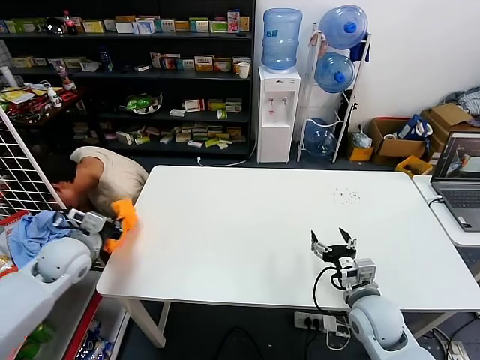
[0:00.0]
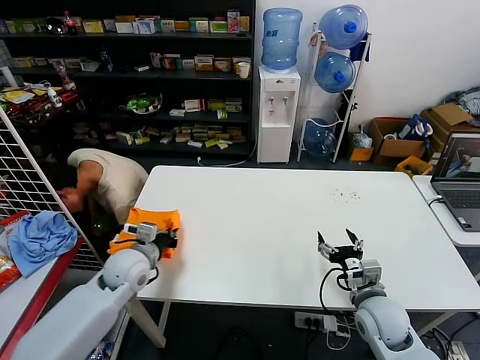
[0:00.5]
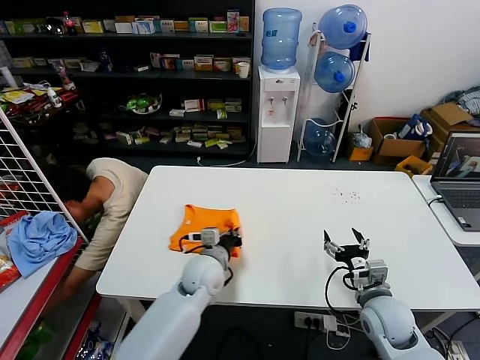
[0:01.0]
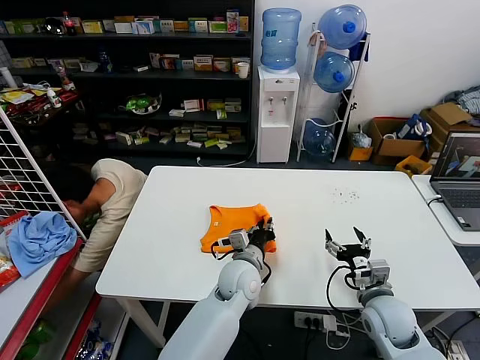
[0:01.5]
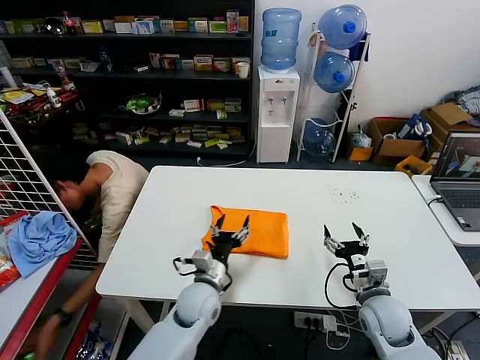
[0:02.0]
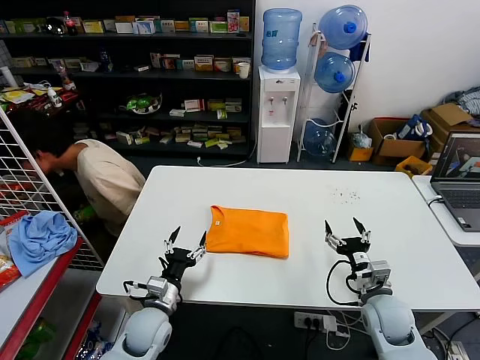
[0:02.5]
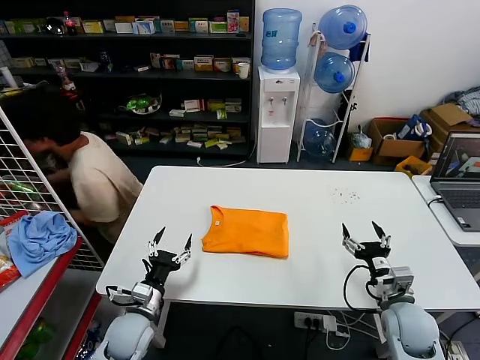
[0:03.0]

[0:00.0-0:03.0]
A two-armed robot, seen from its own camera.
Task of the whole recording: fold and organize the clothes.
0:00.0 to 0:01.5: The left gripper heads to the right, covering approximately 40 cm.
0:01.5 to 0:03.0: The left gripper travels to the left by roughly 25 cm, and opens up.

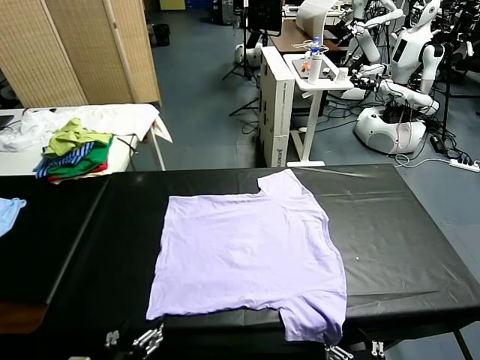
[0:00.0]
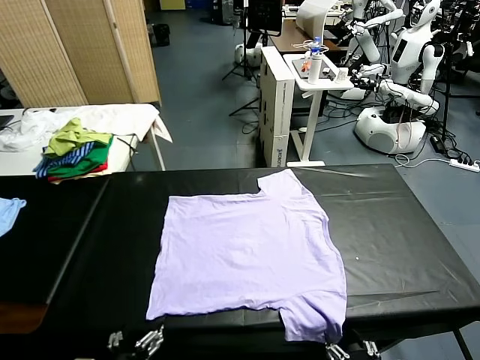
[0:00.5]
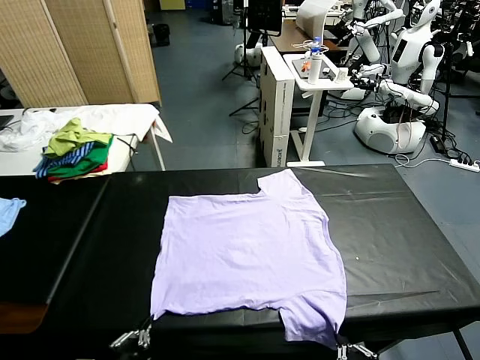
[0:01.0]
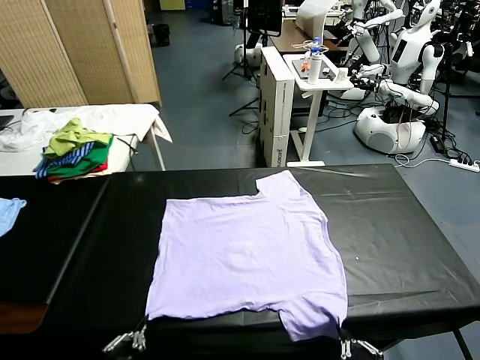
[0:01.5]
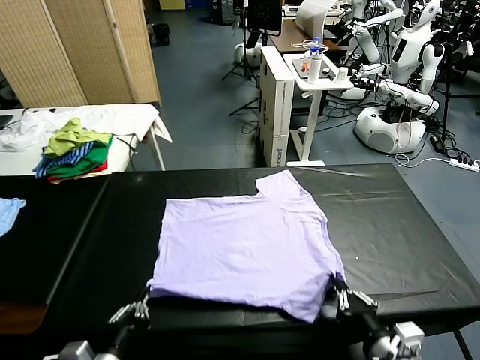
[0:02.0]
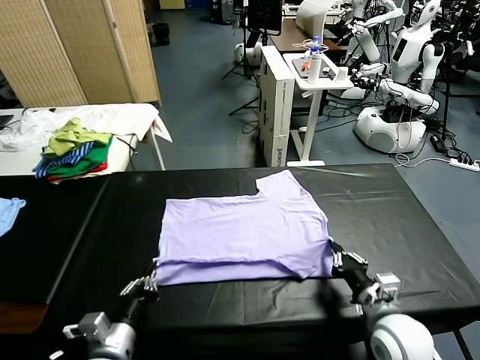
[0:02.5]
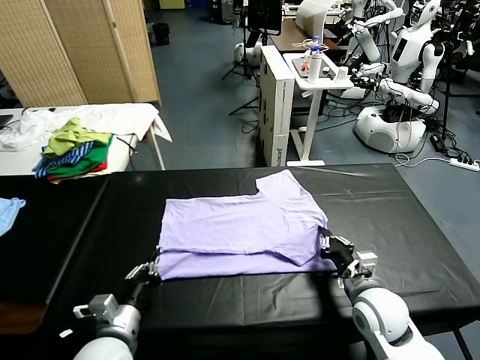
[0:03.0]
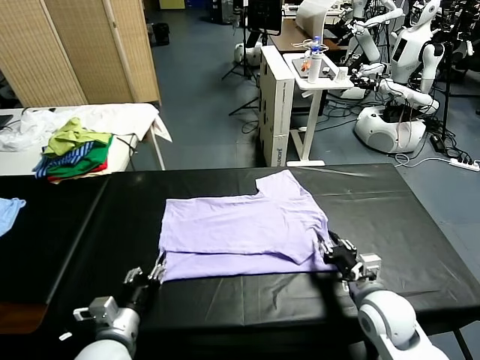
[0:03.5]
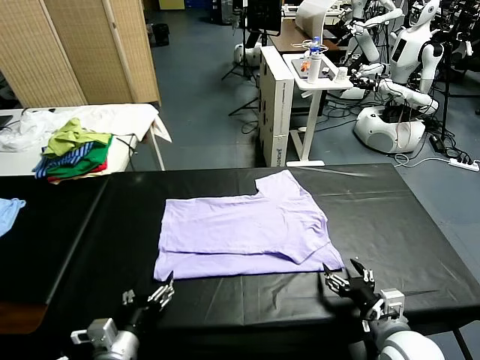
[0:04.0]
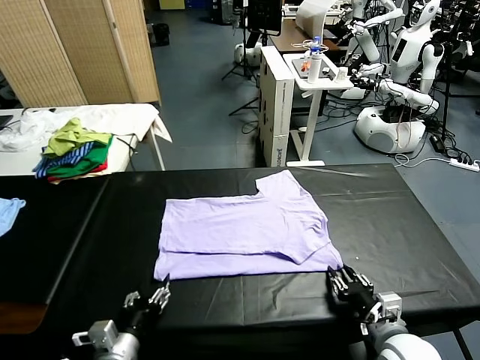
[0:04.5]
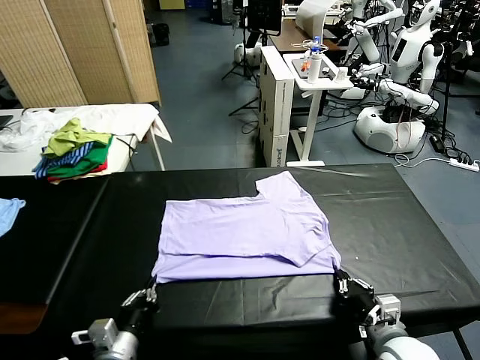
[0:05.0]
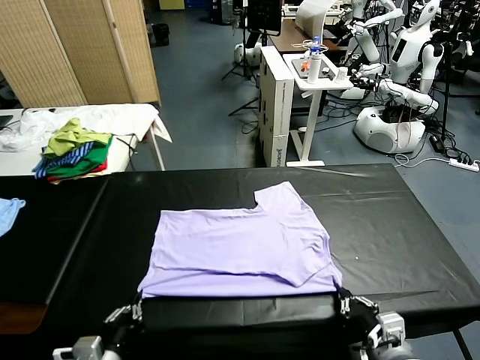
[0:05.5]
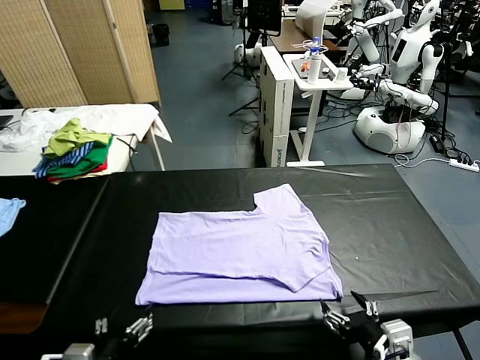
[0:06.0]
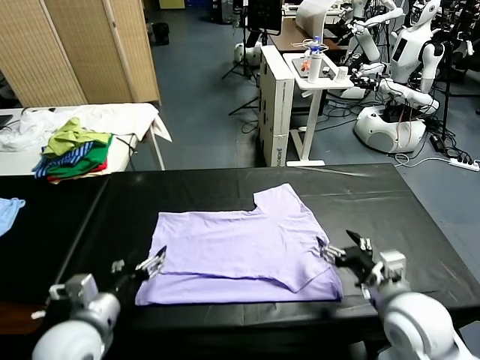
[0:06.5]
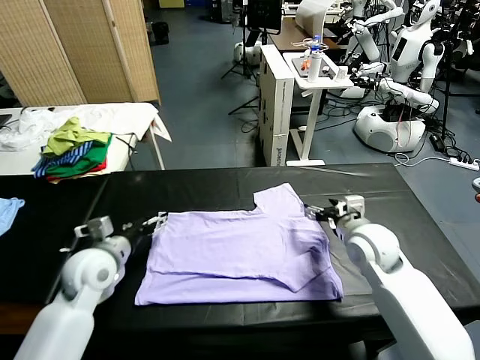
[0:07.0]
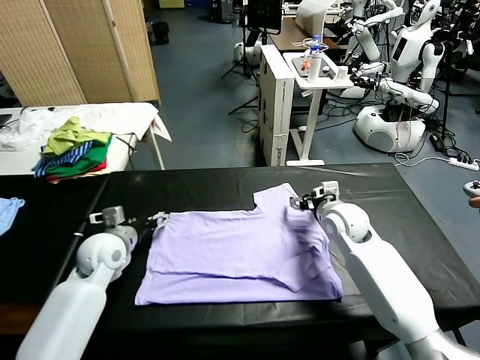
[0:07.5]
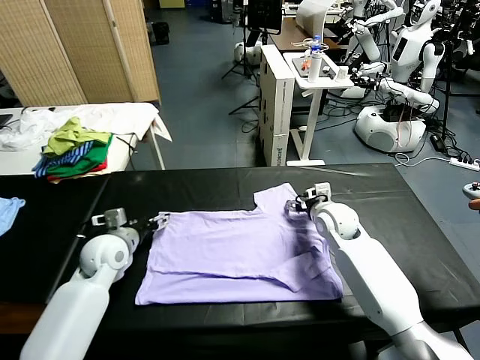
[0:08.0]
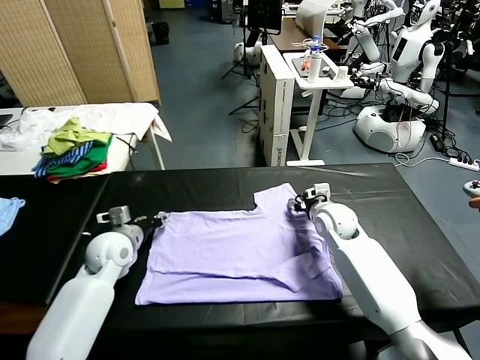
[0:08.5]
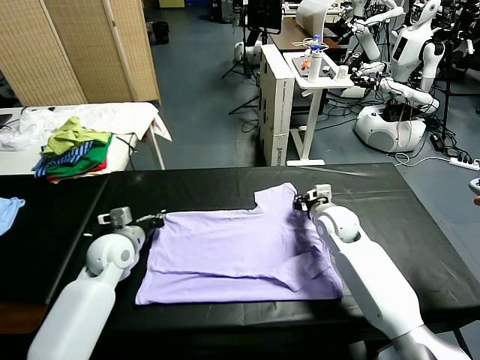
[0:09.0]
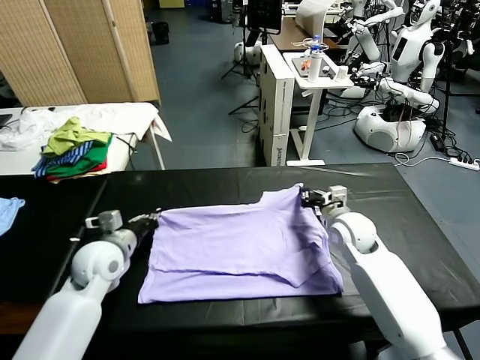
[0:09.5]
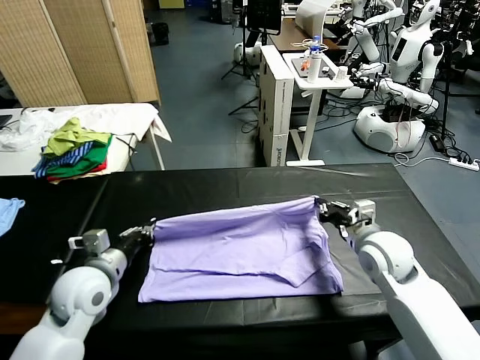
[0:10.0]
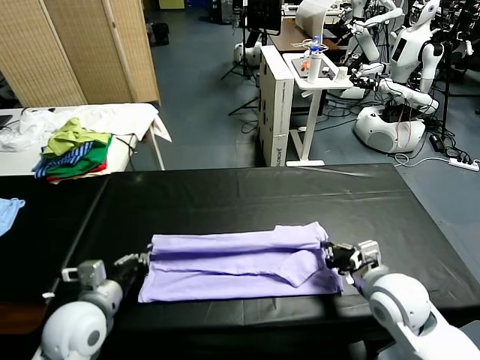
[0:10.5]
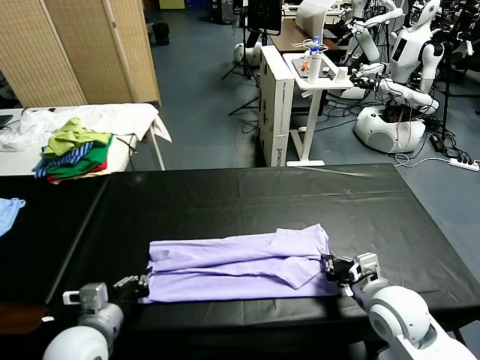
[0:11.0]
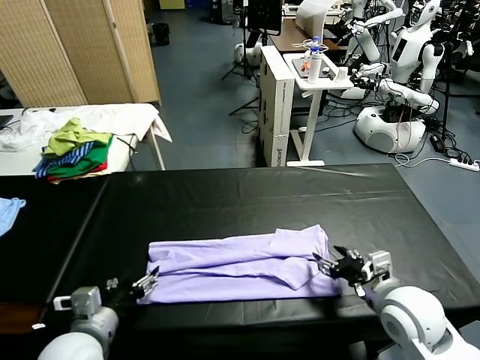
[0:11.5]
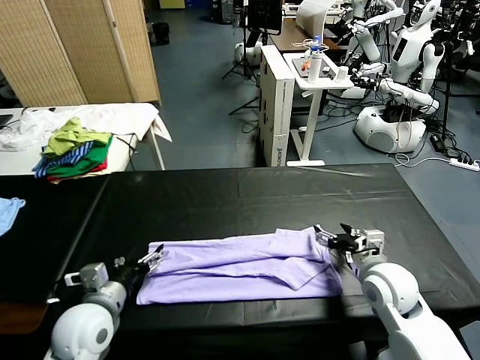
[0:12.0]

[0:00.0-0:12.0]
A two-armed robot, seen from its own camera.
Task of the whole recording: fold and organize the clothes.
Step, 0:00.0 to 0:01.5: use both grippers simultaneously to clamp the lower edge of the clothing fabric.
Step, 0:02.0 to 0:03.5: use both grippers to drag the lower edge of the fabric forward and fold it over the upper edge.
Step, 0:04.0 to 0:05.5: Drag the clothes downward with both gripper.
Step, 0:06.0 to 0:09.0: use both grippers simultaneously to clamp the upper edge of the clothing fabric.
Step, 0:09.5 to 0:11.0: use both grippers to drag the upper edge of the fabric backward and fold it over the lower edge.
0:02.0 to 0:04.0: The left gripper opens up. Meanwhile the right gripper heads backward, covering some 10 cm, and opens up.
0:04.0 to 0:06.0: The right gripper is displaced forward and upward by some 20 cm, and closes, then reopens; the left gripper shifts some 5 cm upward, and closes, then reopens.
0:06.0 to 0:08.0: The left gripper goes roughly 30 cm forward. The right gripper goes roughly 10 cm forward and downward.
0:08.0 to 0:10.0: The right gripper heads backward, covering about 20 cm, and closes up. Meanwhile the left gripper goes approximately 10 cm backward, and closes up.
0:10.0 to 0:12.0: The right gripper moves forward, some 10 cm, and opens up. Meanwhile the left gripper opens up.

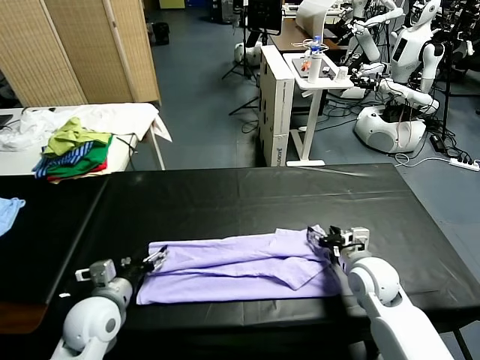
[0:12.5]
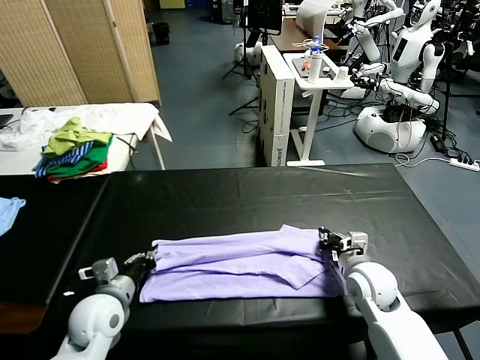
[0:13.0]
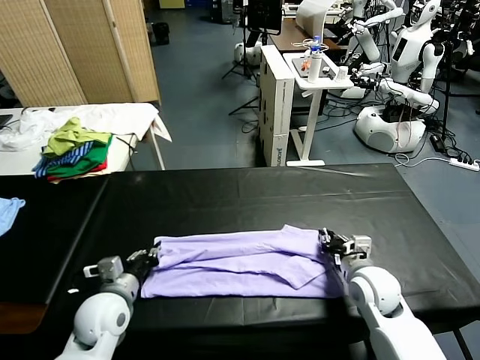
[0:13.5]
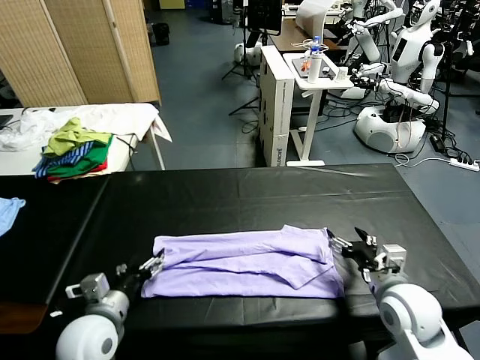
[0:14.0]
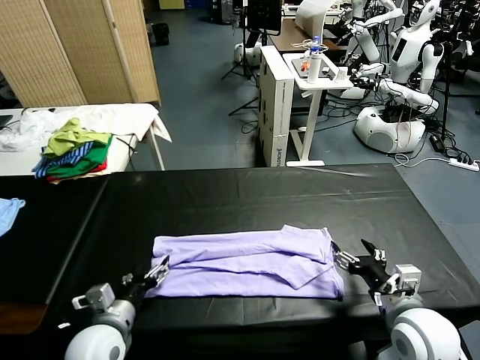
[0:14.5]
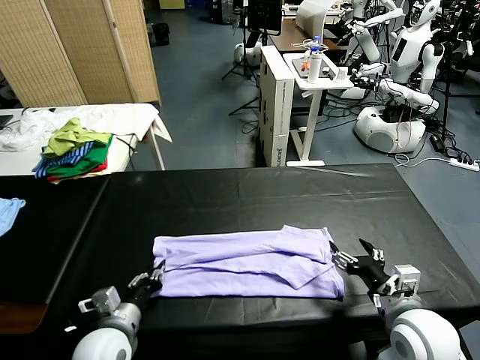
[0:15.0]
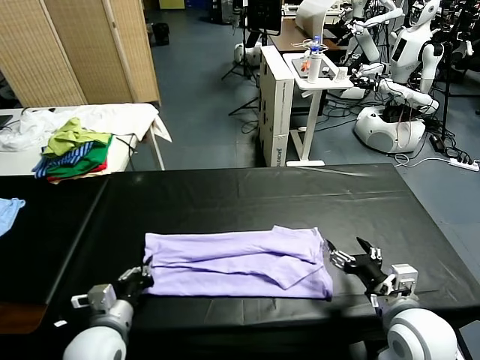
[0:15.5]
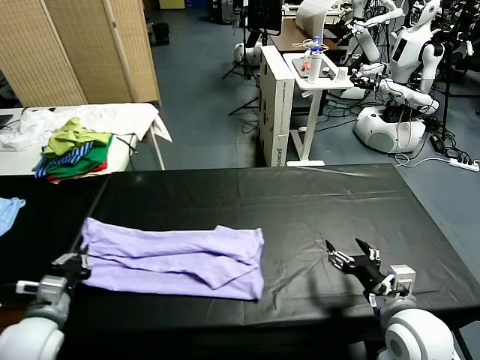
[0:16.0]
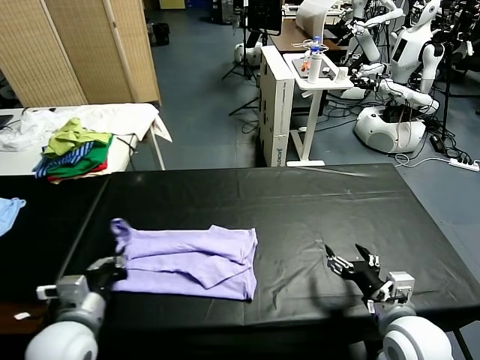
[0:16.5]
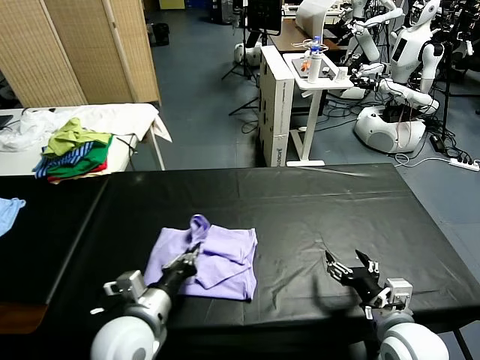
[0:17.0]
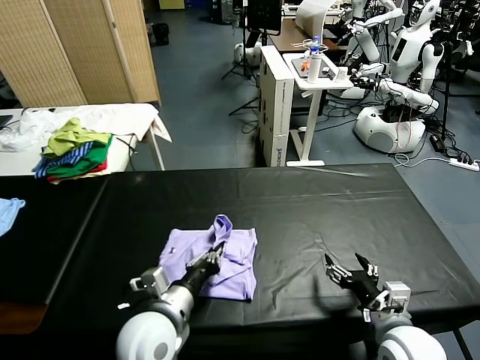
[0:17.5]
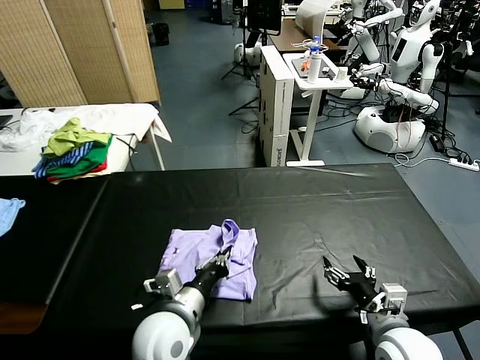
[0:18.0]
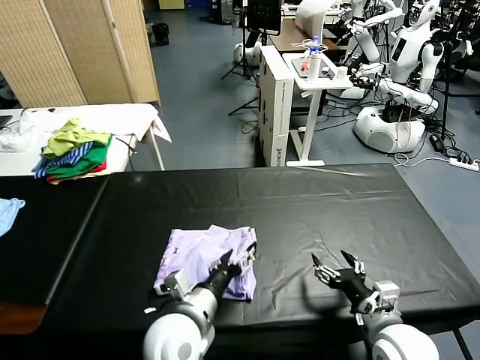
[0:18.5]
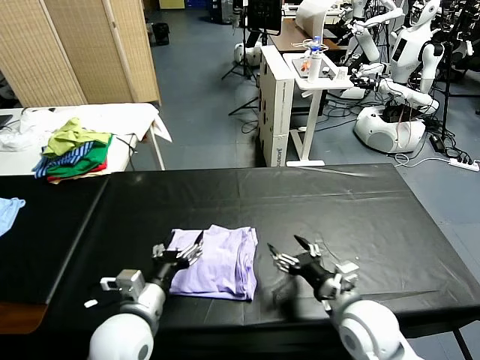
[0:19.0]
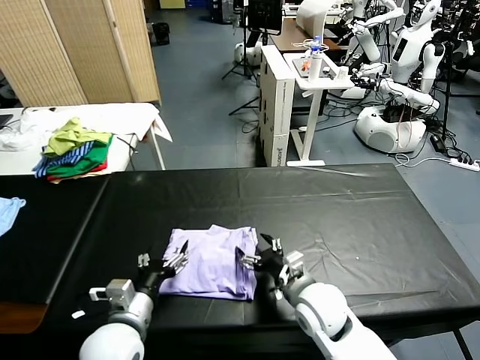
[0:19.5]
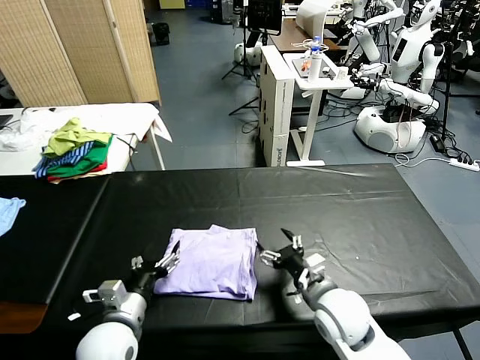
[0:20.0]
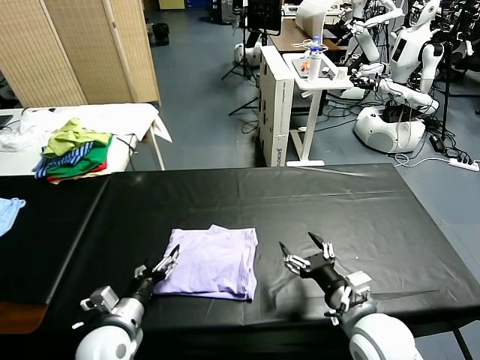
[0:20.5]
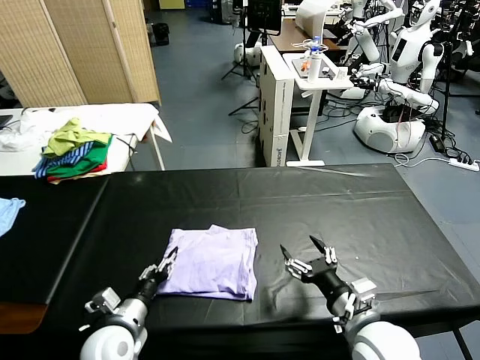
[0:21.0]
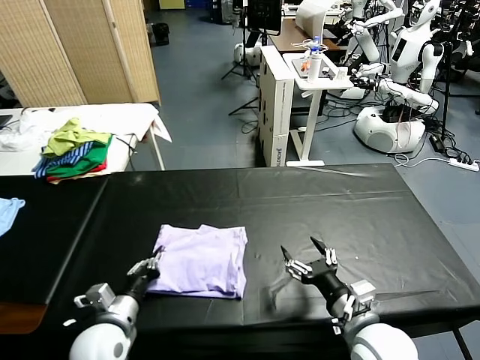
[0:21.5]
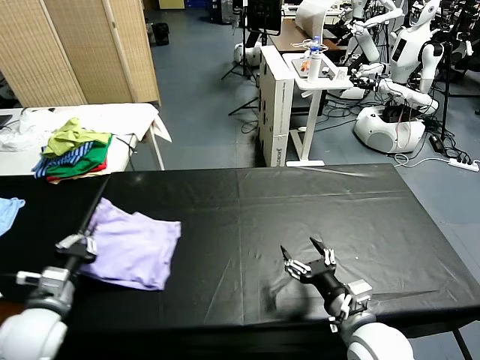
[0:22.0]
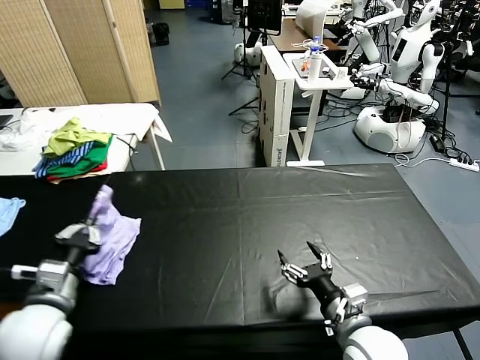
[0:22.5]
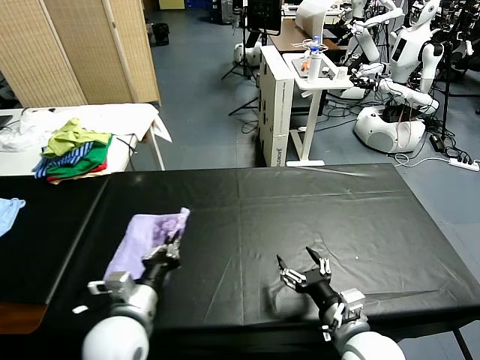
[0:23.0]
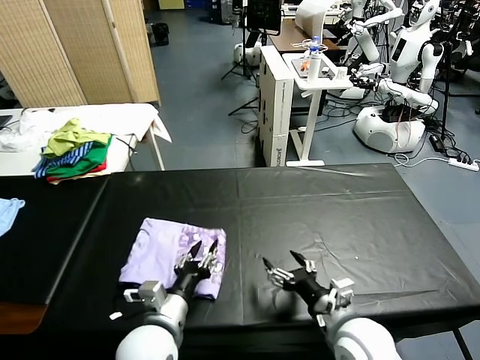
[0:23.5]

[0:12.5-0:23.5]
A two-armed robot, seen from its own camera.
Task of the whole recording: fold and organize the clothes.
Step, 0:12.5 to 0:15.5: use the left gripper to clamp the left edge of the fabric.
Step, 0:16.0 to 0:18.0: use the left gripper to drag the left edge of the fabric to the left and folds it over the right edge.
Step, 0:19.0 to 0:23.5: Flip the folded clothes over with left gripper.
0:12.5 to 0:14.5: The left gripper moves backward, roughly 5 cm, and closes, then reopens. Meanwhile the right gripper goes roughly 15 cm backward and upward, and opens.
0:14.5 to 0:16.0: The left gripper shifts about 10 cm to the left, and closes.
0:16.0 to 0:18.0: The left gripper travels to the right by approximately 25 cm.
0:18.0 to 0:20.0: The right gripper is displaced to the left by approximately 5 cm; the left gripper moves to the left, some 10 cm, and opens its fingers.
0:20.0 to 0:21.5: The left gripper closes.
0:21.5 to 0:23.5: The left gripper travels to the right by approximately 10 cm, and opens.
